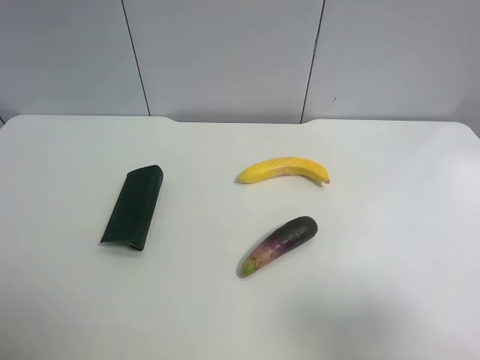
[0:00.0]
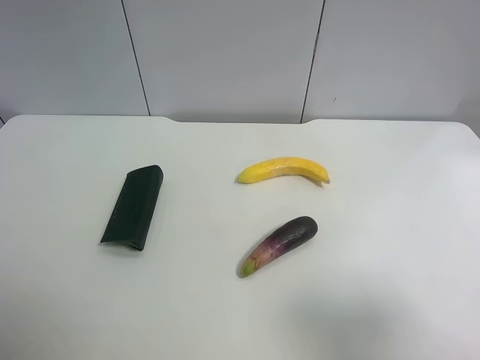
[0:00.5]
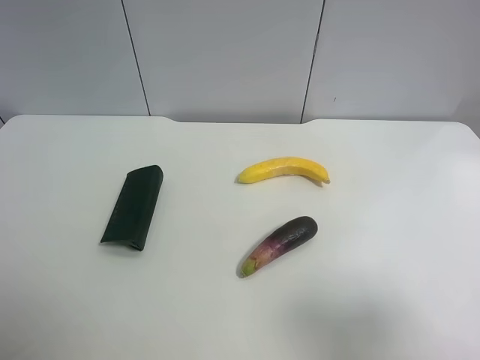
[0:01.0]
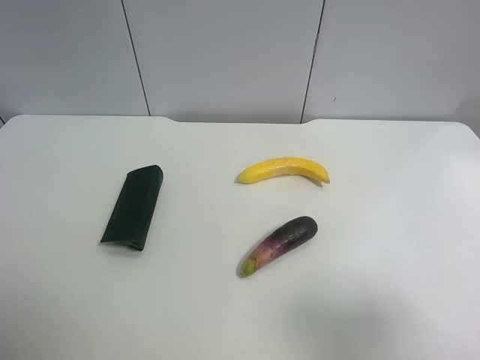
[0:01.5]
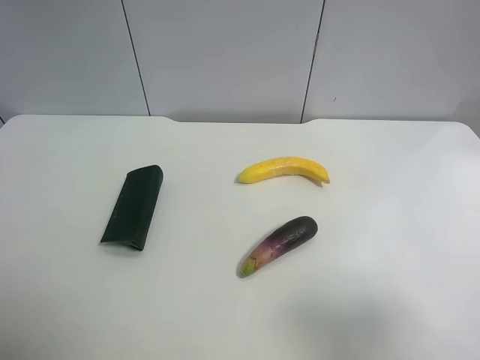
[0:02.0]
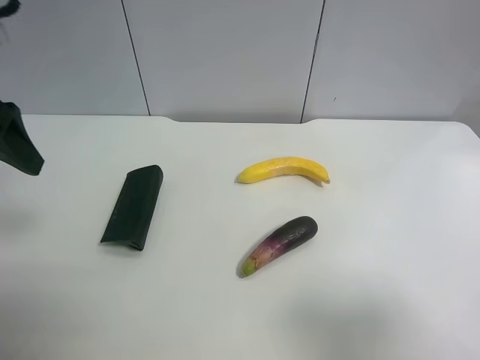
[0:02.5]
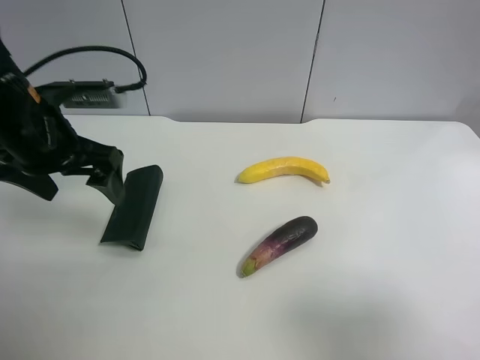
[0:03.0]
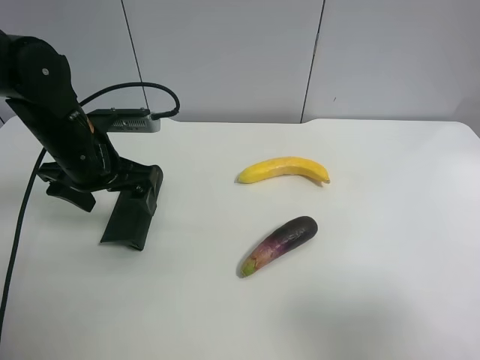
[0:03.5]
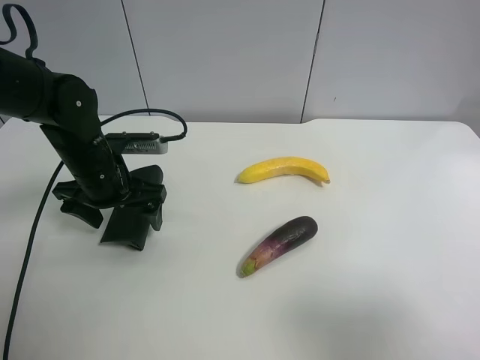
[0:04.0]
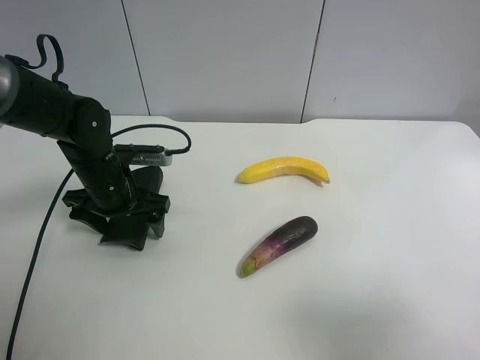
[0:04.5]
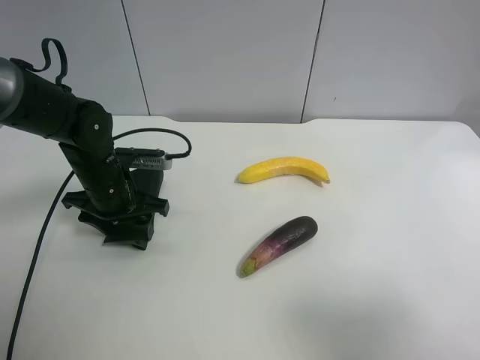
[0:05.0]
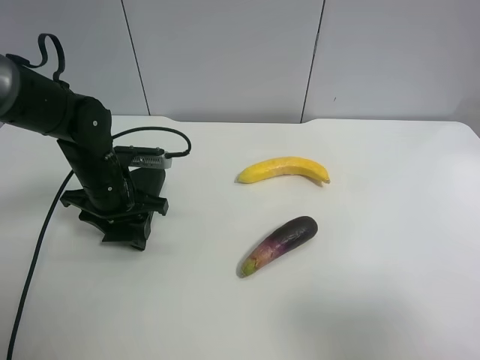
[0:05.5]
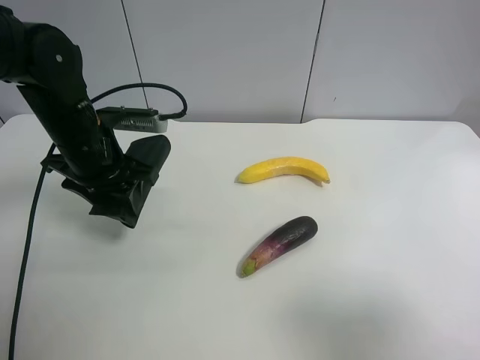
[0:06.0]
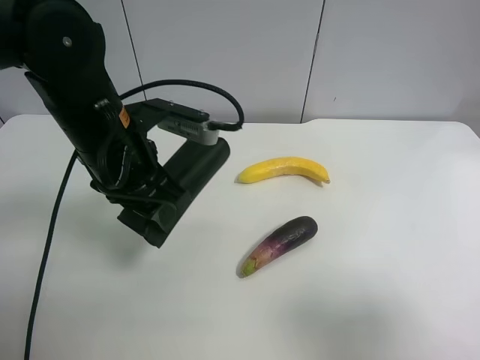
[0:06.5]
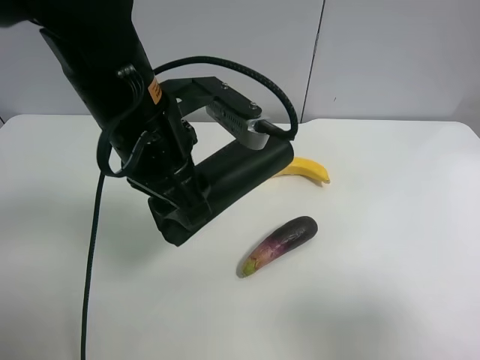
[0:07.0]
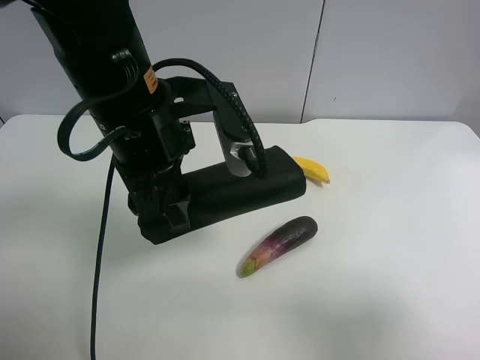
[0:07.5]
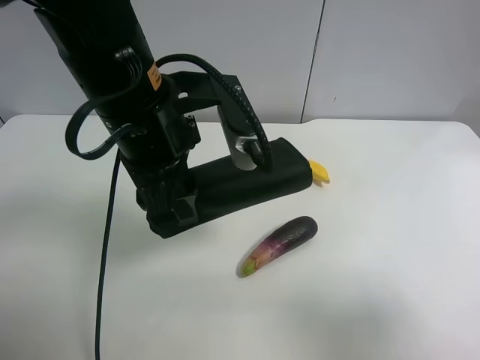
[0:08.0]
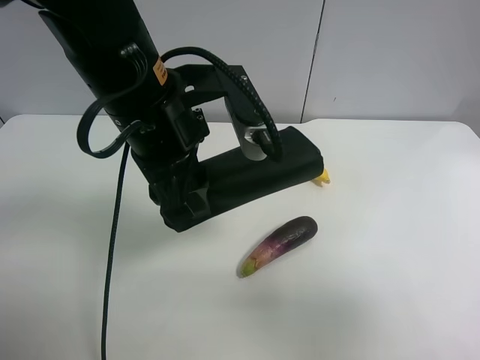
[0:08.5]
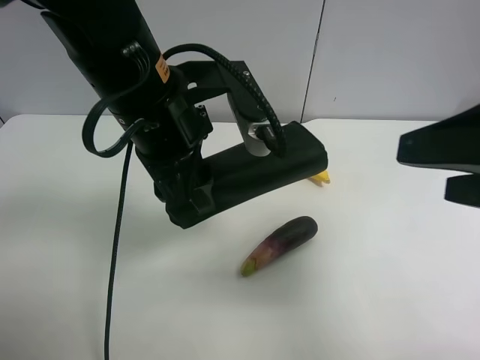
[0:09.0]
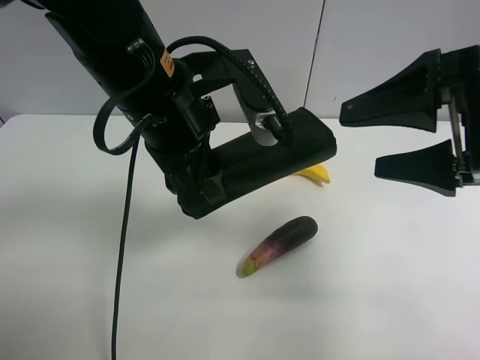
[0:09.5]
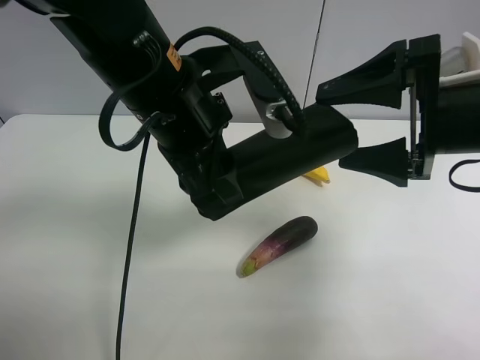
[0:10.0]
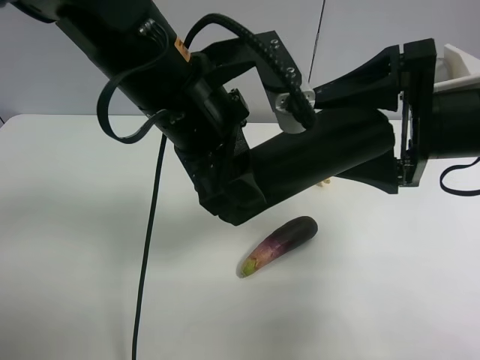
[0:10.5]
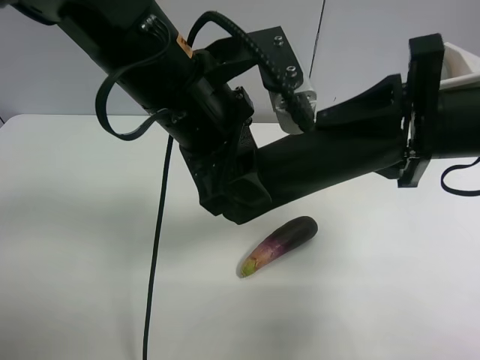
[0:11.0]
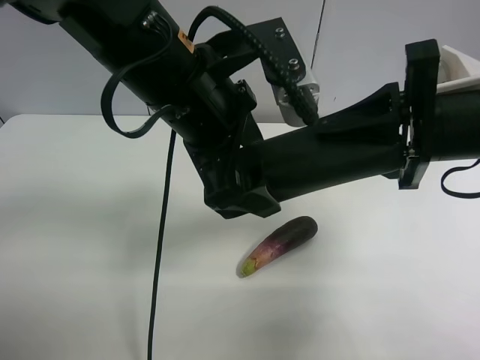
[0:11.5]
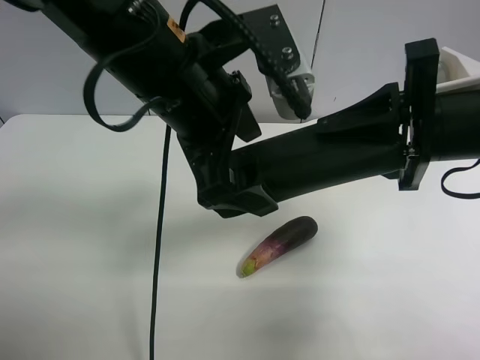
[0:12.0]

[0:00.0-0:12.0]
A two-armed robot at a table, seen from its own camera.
Task of the whole recording: use the left gripper to pick up the item and transfer it from the left gripper to the right gripper.
0:02.0 to 0:04.0: The left gripper goes about 30 cm downward, forward and to the right.
0:04.0 to 0:06.0: The left gripper closes up.
0:06.0 to 0:08.0: The left gripper heads to the right, upward and backward, covering roughly 15 cm.
0:08.0 to 0:10.0: The right gripper is displaced forward by approximately 20 cm.
0:10.0 to 0:12.0: The right gripper closes up. Meanwhile the left gripper opens.

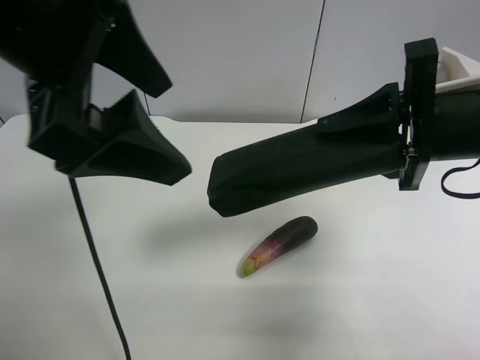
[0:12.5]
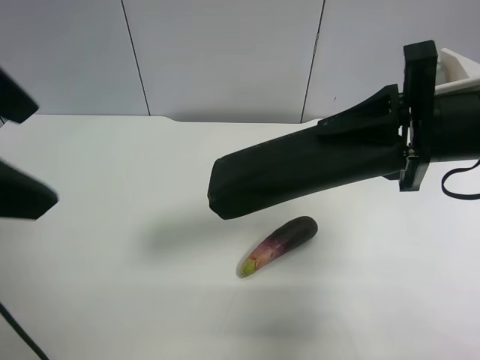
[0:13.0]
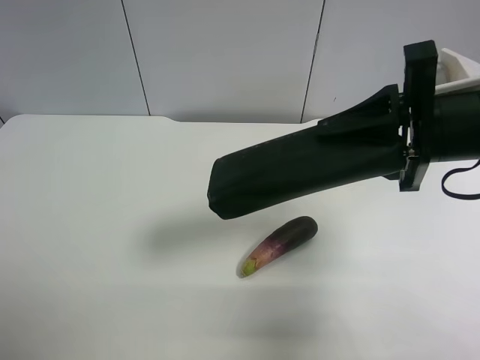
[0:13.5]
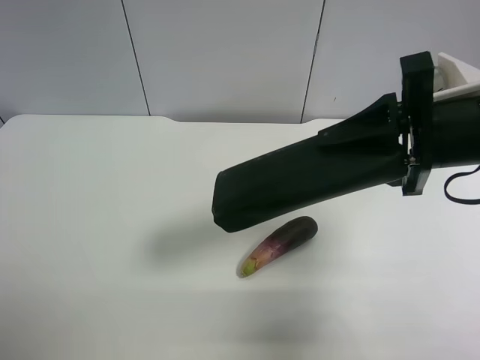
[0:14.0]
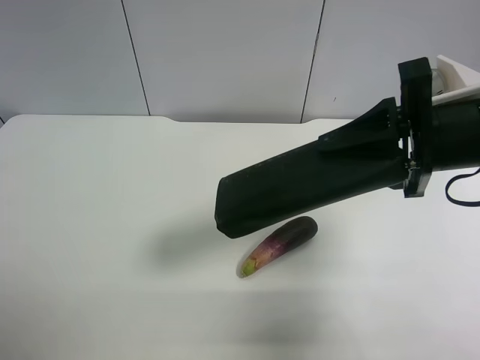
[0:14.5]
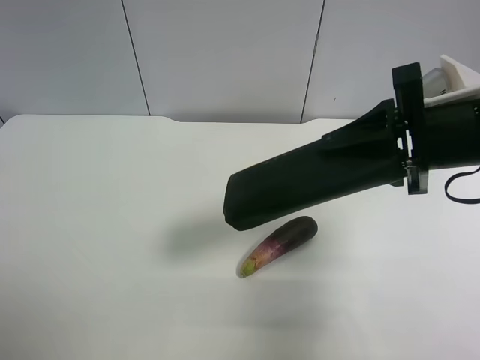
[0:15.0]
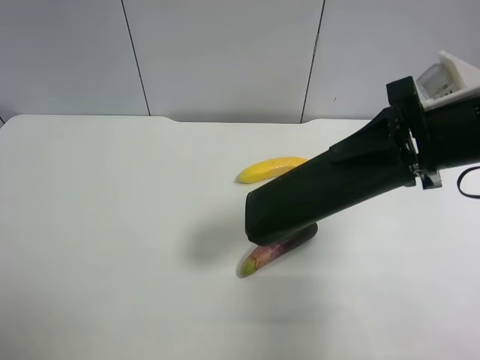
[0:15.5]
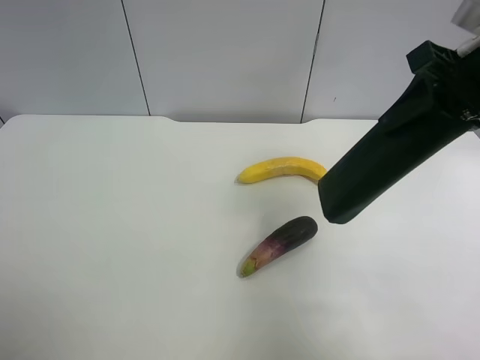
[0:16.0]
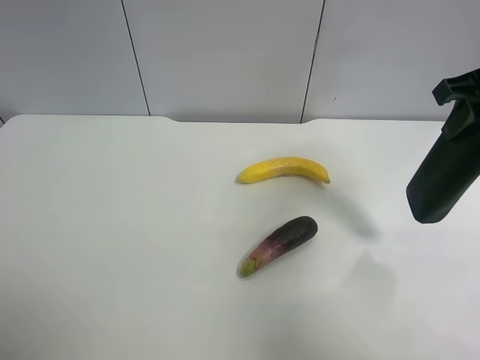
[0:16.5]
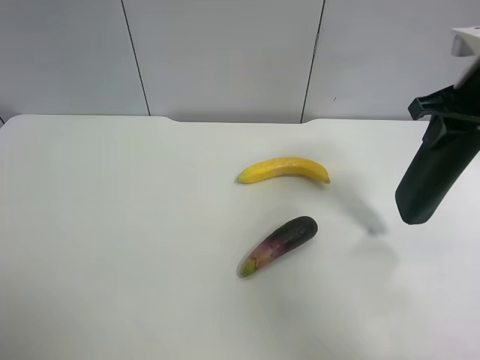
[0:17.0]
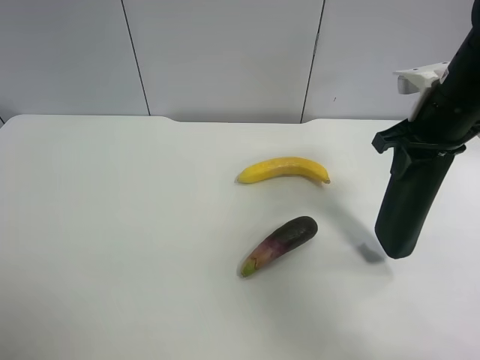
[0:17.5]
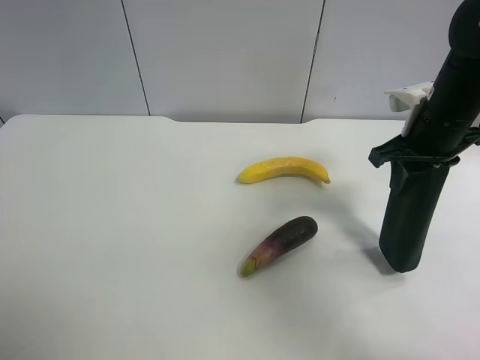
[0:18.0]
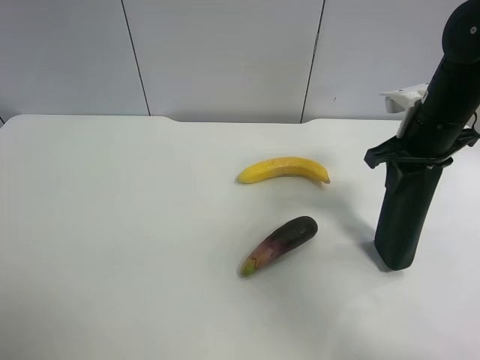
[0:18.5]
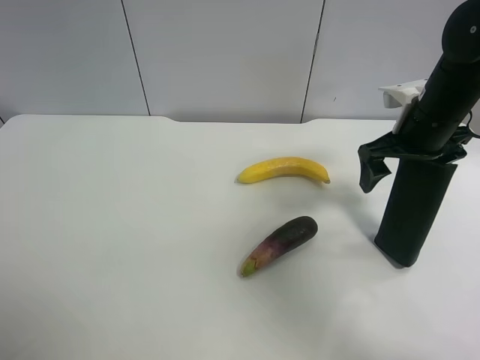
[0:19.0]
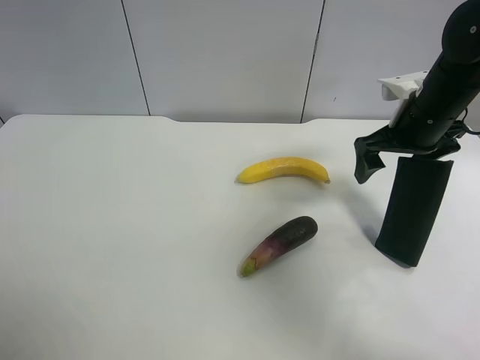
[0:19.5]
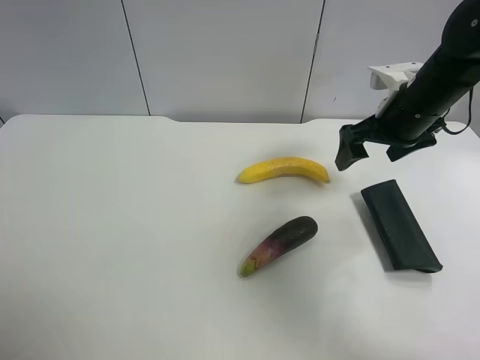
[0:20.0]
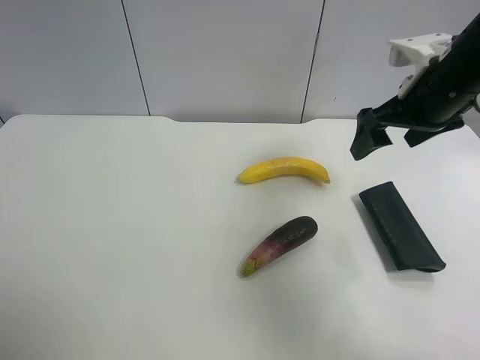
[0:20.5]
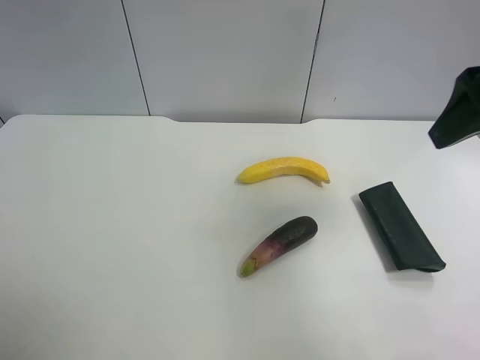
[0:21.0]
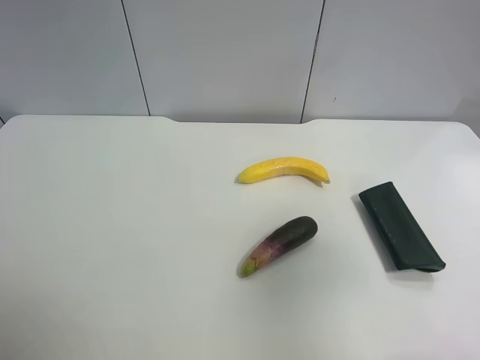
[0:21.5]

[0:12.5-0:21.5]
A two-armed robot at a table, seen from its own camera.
Task of the whole recording: use the left gripper to pick up the item and transfer it from the left gripper to the right gripper.
0:12.5 to 0:14.5: The left gripper is displaced to the left, backward and downward by roughly 25 cm.
0:14.5 to 0:17.0: The right gripper goes some 10 cm forward and to the right.
0:17.0 to 0:19.5: The right gripper moves downward, approximately 5 cm, and opens its fingers.
0:19.5 to 0:21.5: The right gripper heads backward and upward, covering roughly 30 cm.

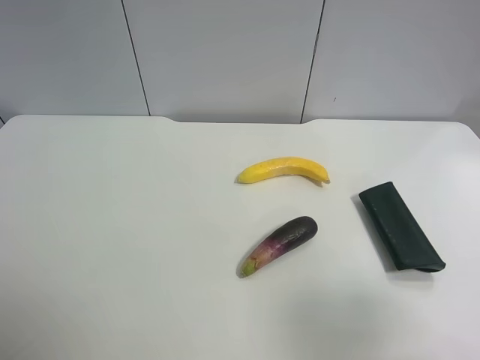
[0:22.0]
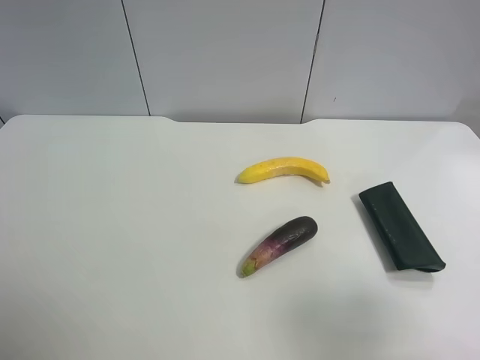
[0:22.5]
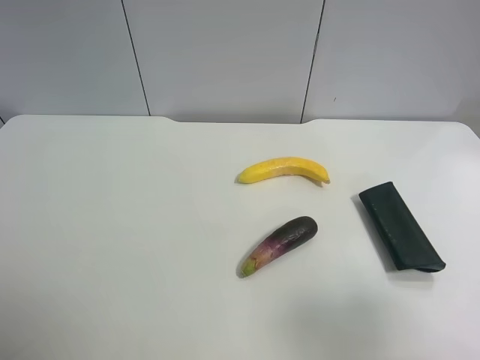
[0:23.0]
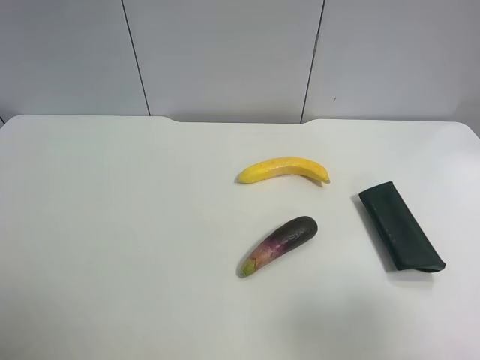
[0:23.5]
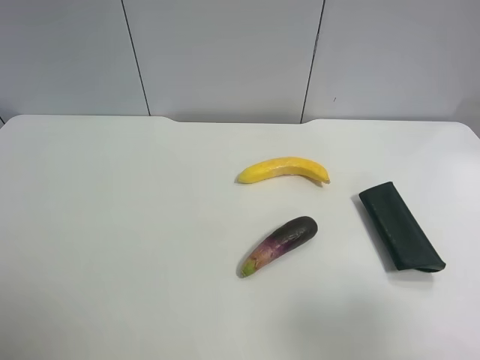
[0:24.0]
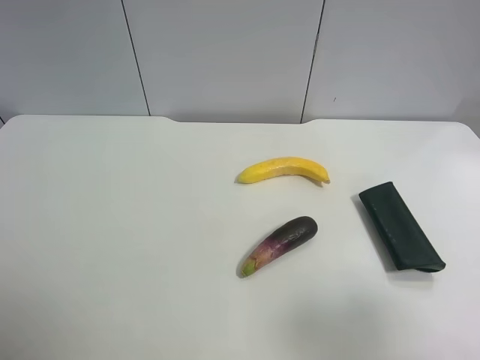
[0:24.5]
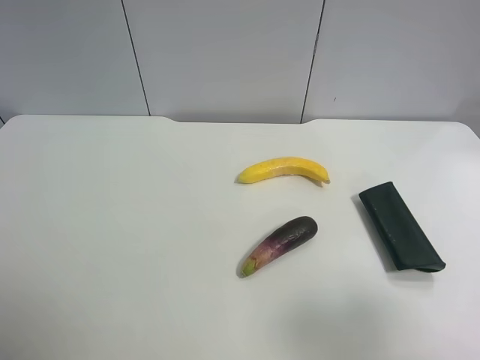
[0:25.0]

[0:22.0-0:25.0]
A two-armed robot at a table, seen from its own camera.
Task of the whole recording: use the left gripper to pick up the item and transfer it from the left gripper to the right gripper.
0:23.5 to 0:25.0: Neither gripper changes place.
